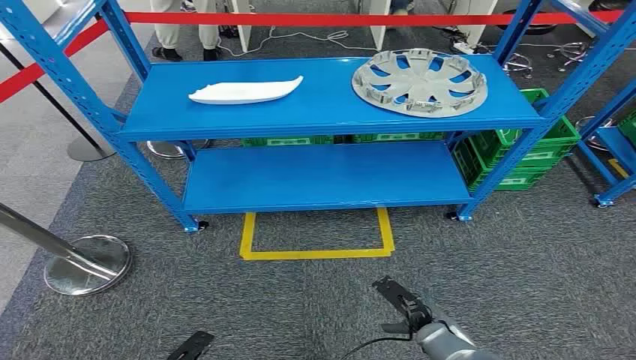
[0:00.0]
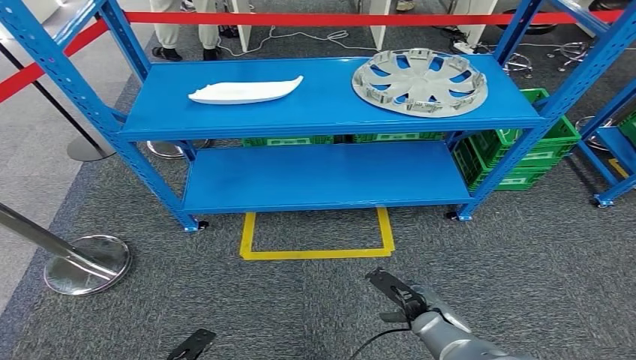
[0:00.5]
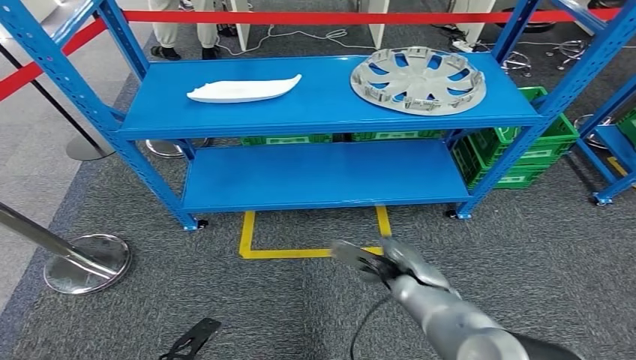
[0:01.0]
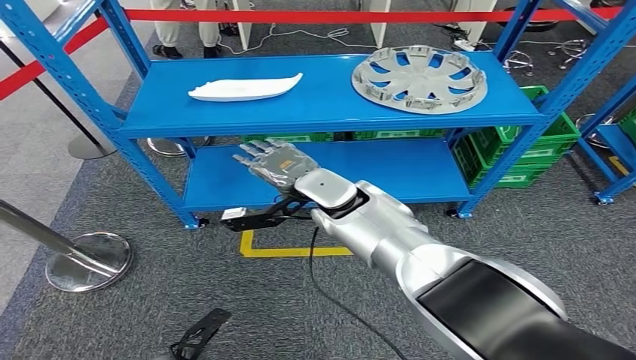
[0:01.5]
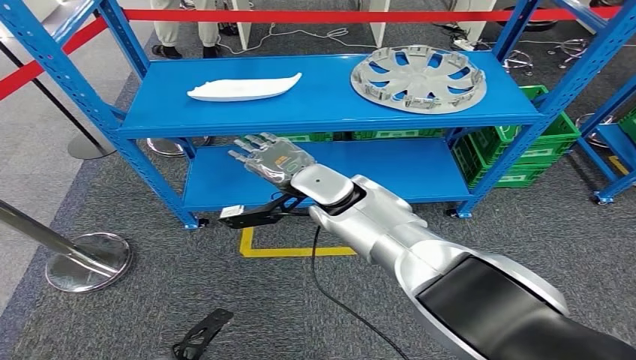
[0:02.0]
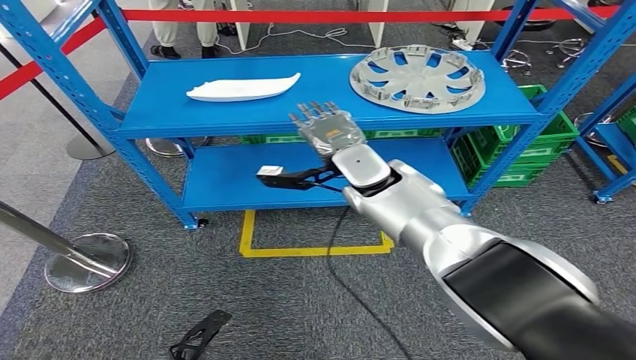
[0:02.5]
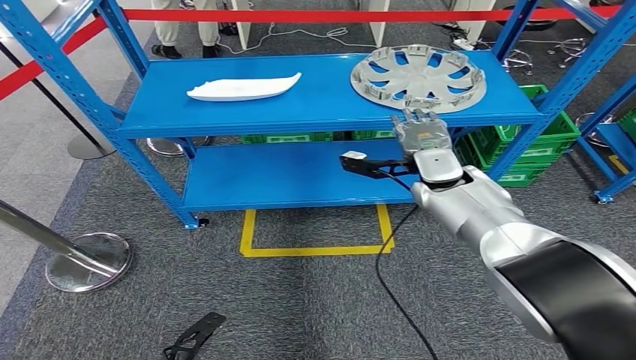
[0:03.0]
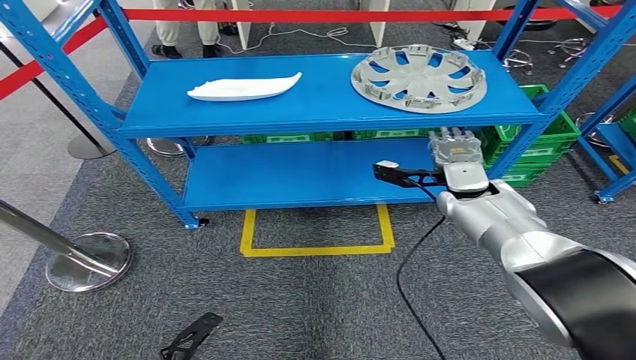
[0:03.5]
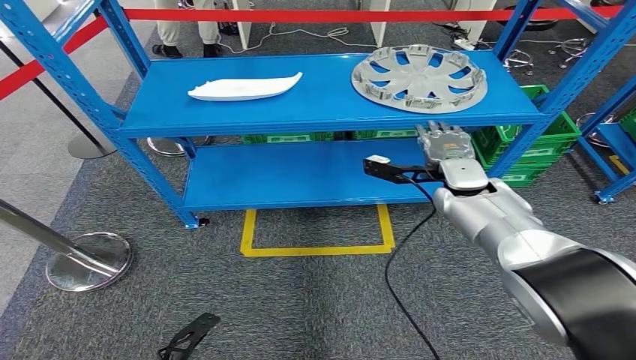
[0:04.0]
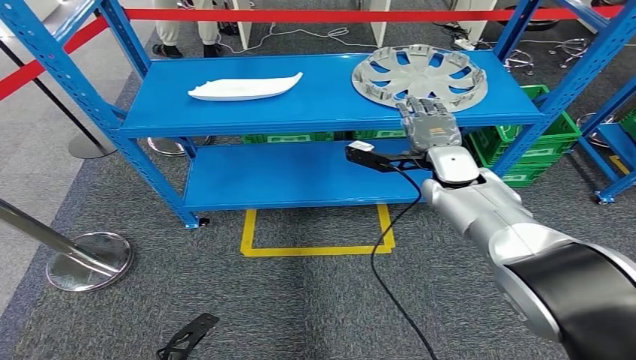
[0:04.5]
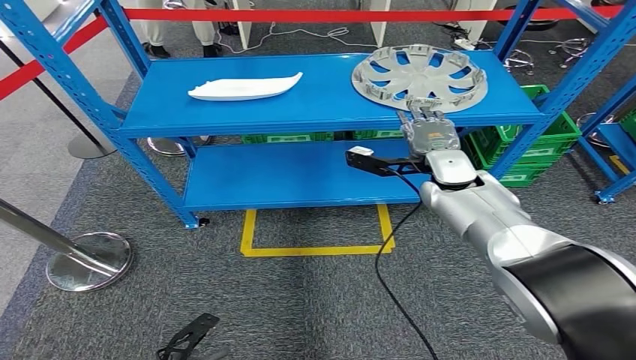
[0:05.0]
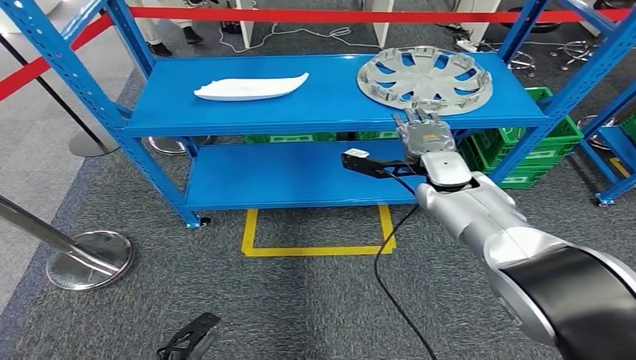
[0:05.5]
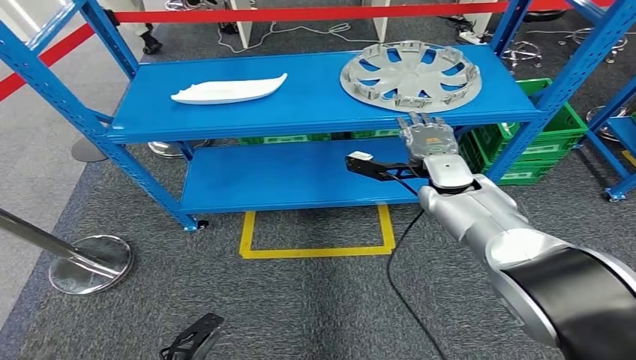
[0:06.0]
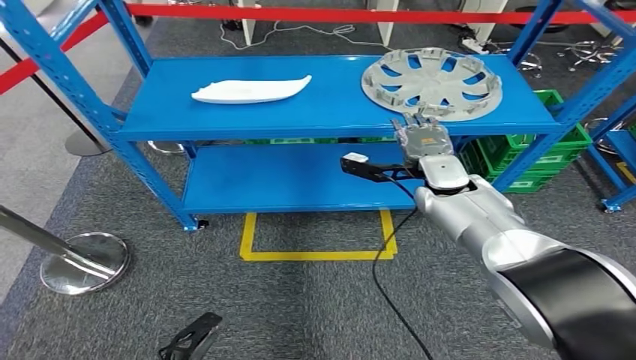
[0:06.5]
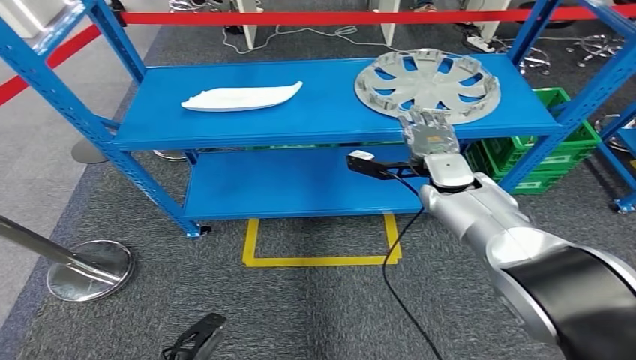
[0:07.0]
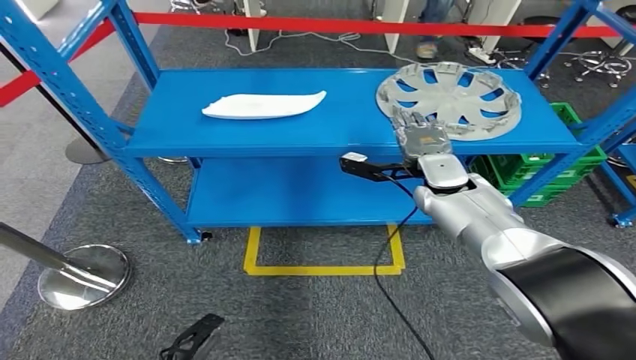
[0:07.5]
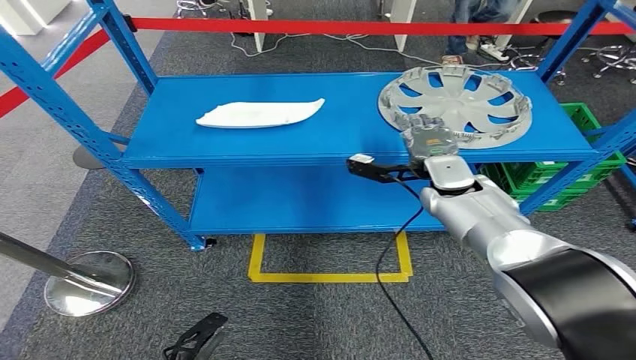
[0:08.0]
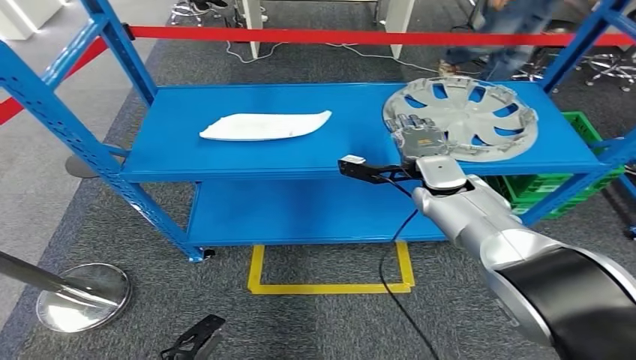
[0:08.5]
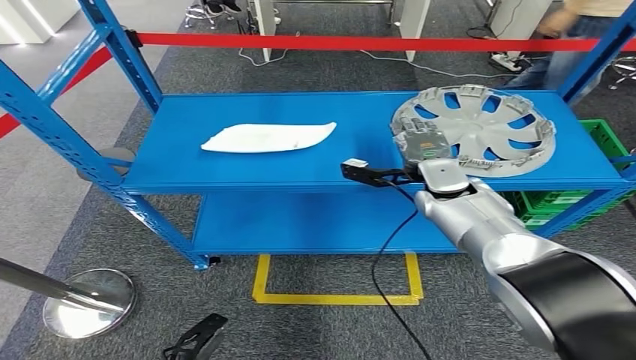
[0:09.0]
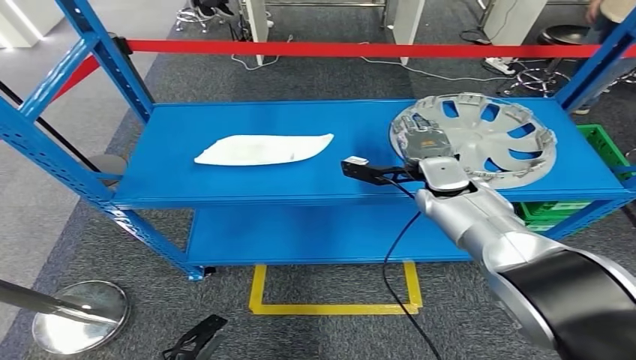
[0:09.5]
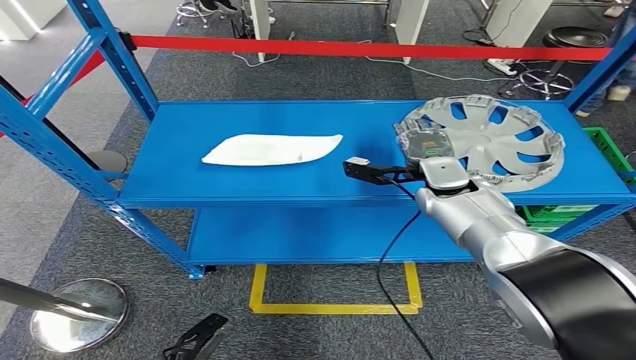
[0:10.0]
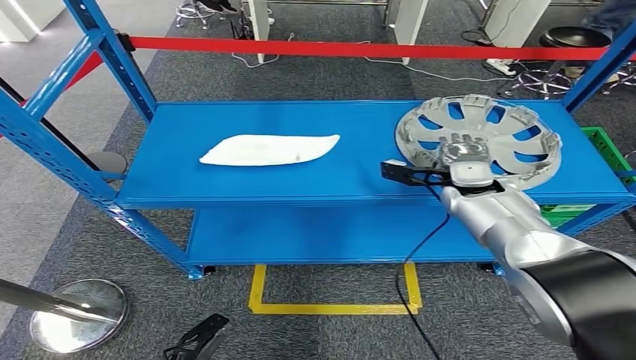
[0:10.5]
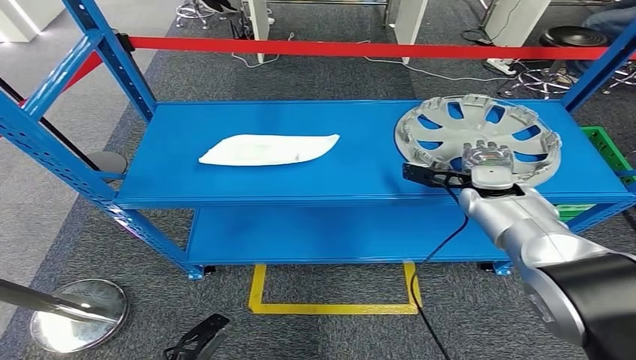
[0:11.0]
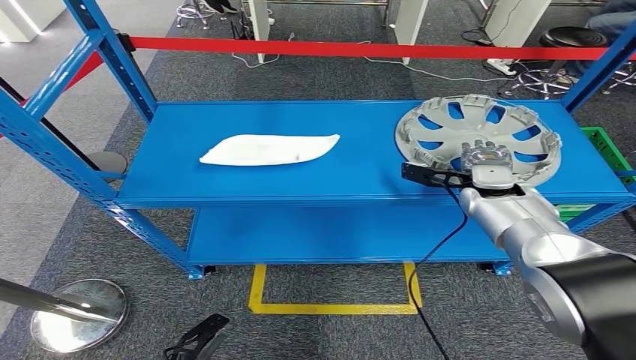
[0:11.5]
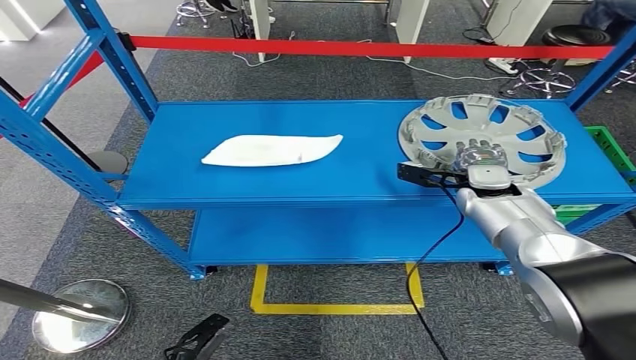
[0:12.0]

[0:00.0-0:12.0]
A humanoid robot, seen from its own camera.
0:02.0 to 0:04.0: The right hand travels to the right by roughly 20 cm.
0:10.0 to 0:12.0: The right hand shifts approximately 10 cm to the right.

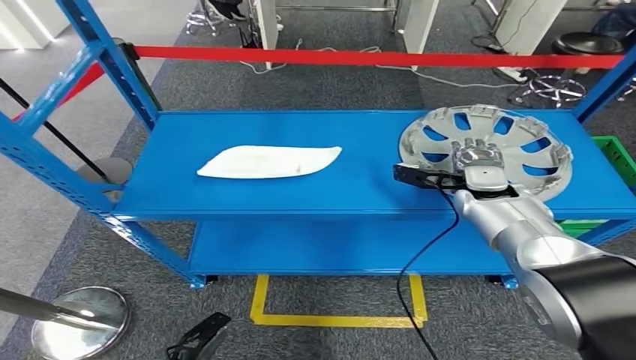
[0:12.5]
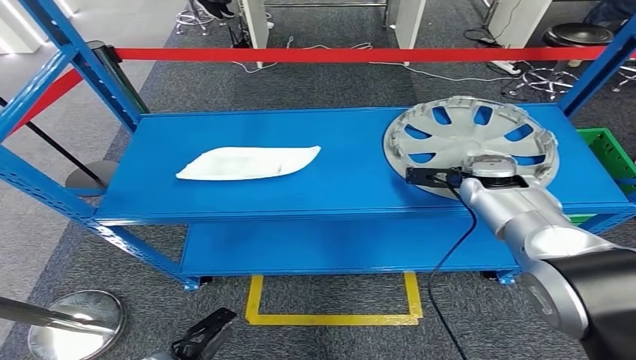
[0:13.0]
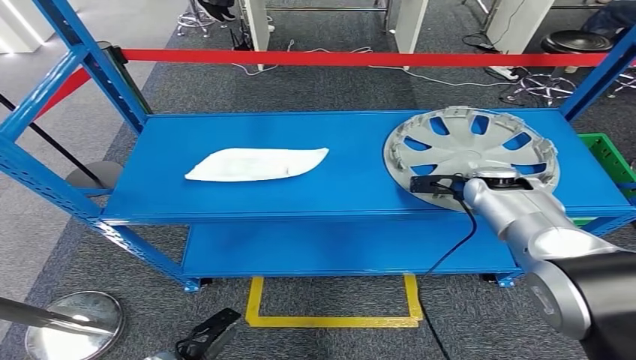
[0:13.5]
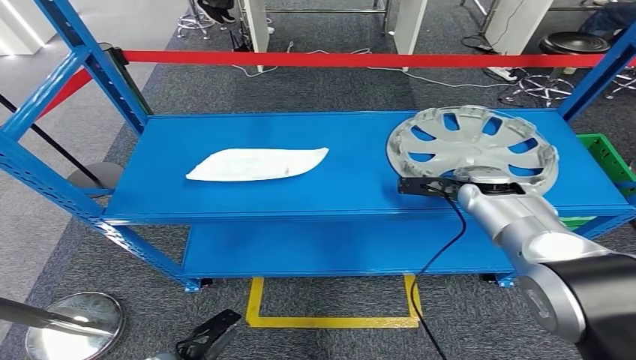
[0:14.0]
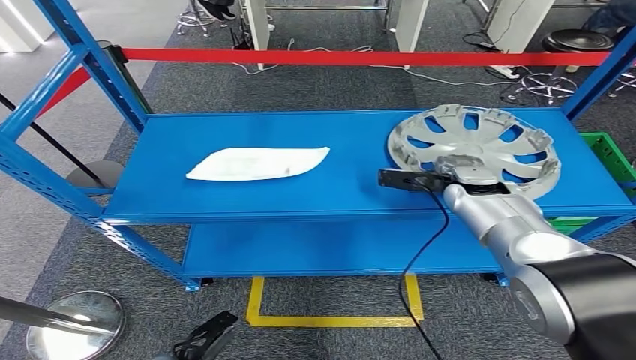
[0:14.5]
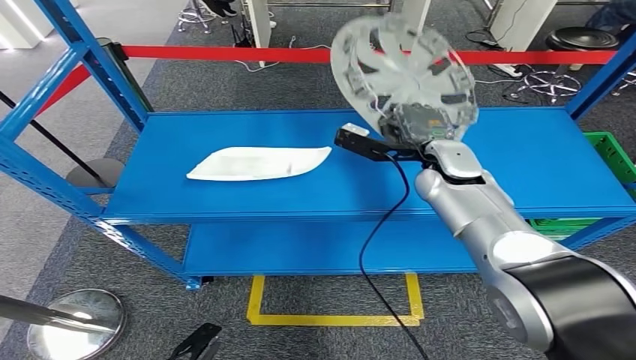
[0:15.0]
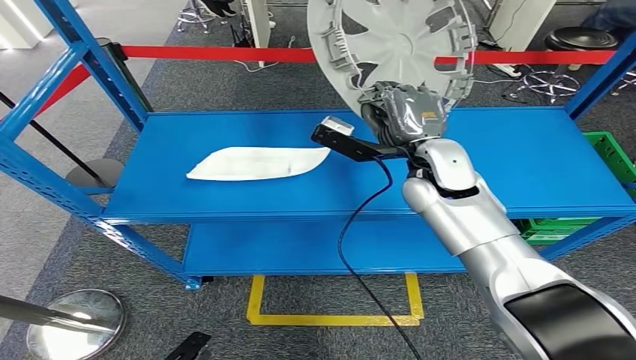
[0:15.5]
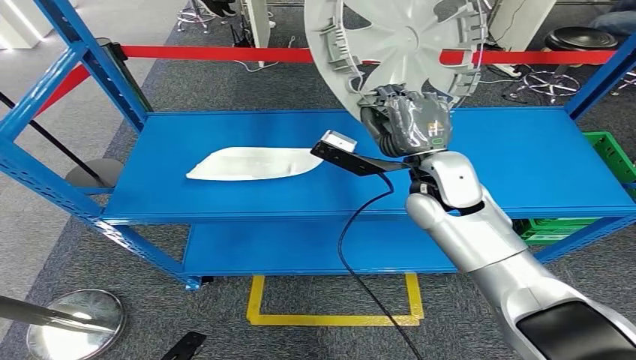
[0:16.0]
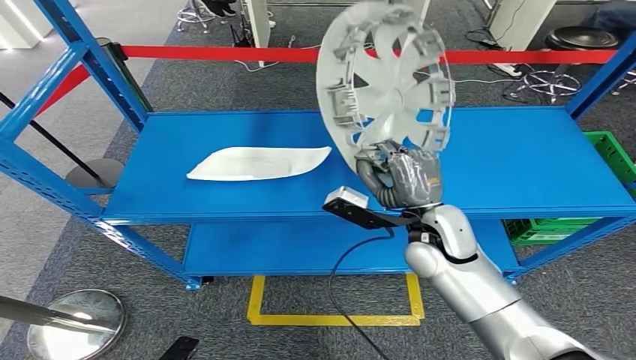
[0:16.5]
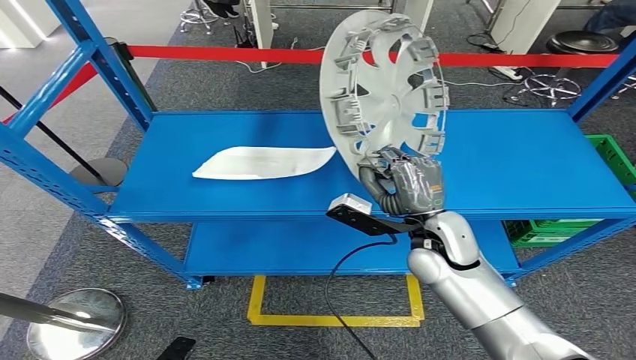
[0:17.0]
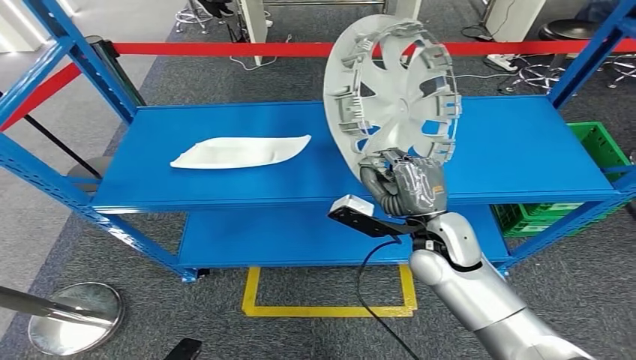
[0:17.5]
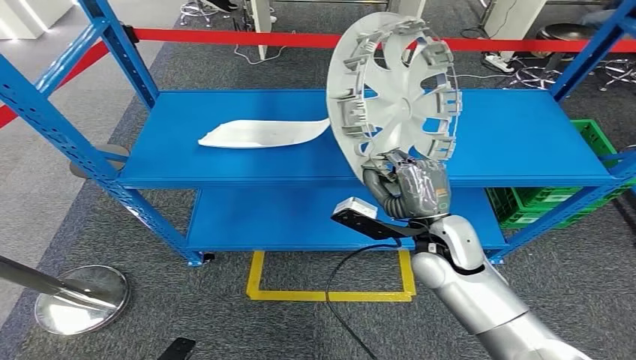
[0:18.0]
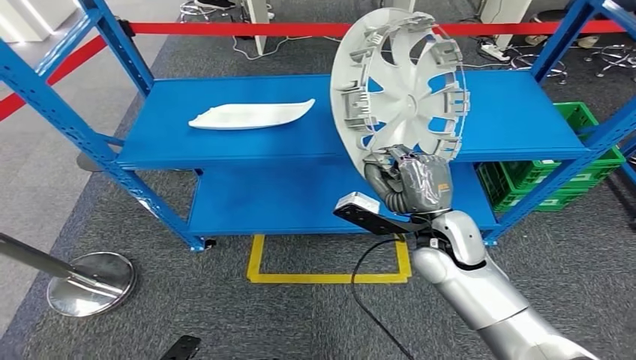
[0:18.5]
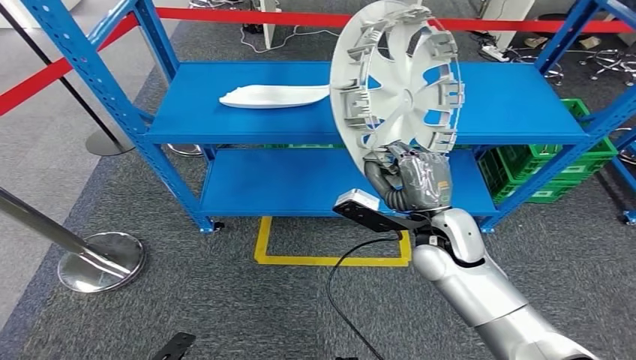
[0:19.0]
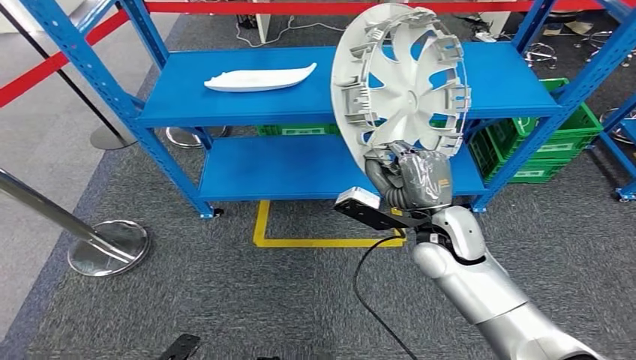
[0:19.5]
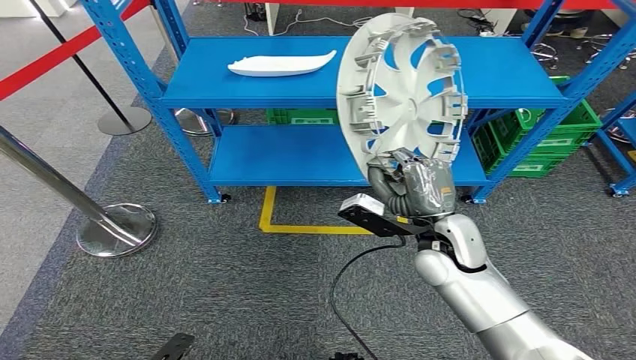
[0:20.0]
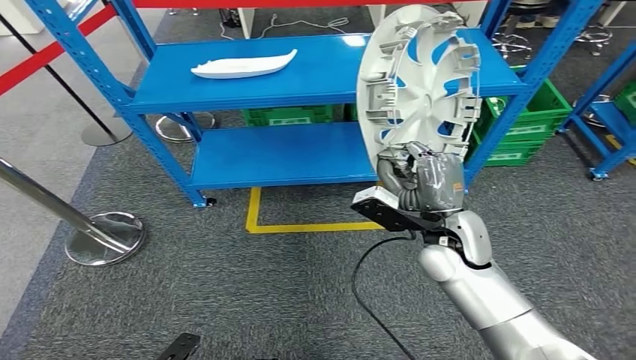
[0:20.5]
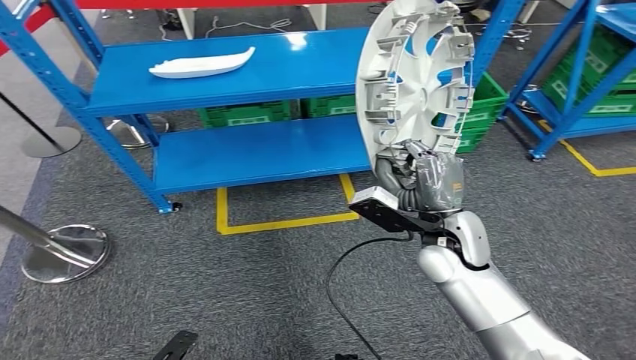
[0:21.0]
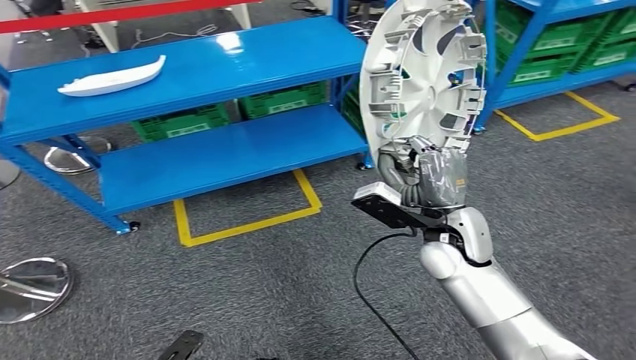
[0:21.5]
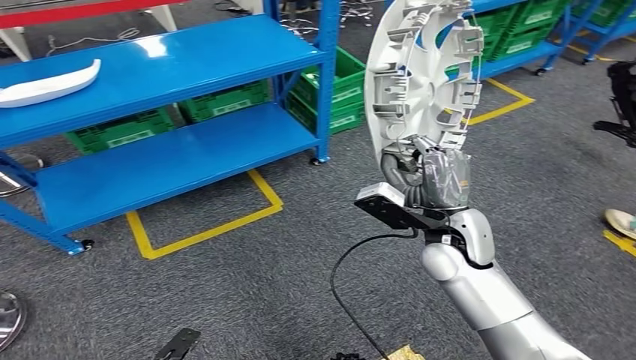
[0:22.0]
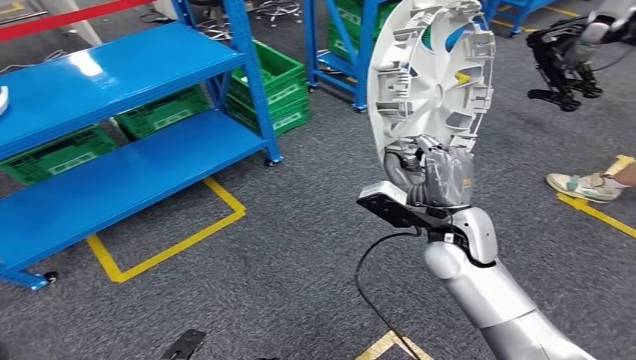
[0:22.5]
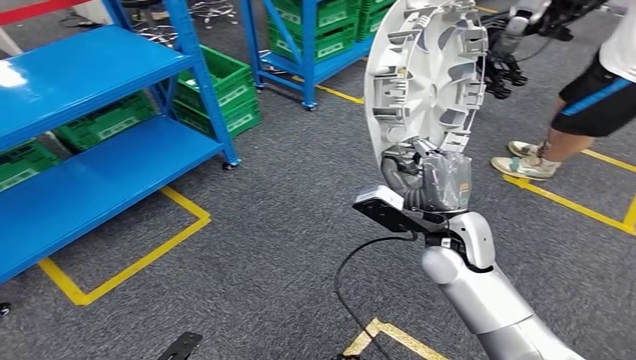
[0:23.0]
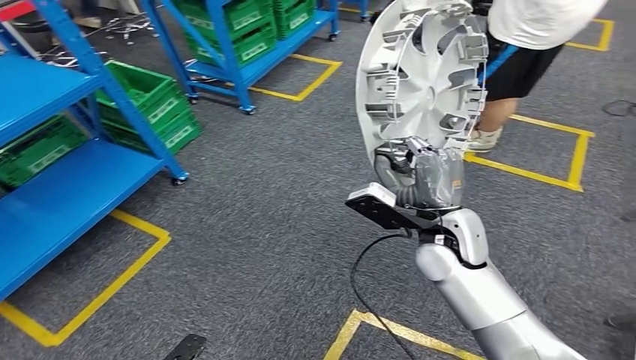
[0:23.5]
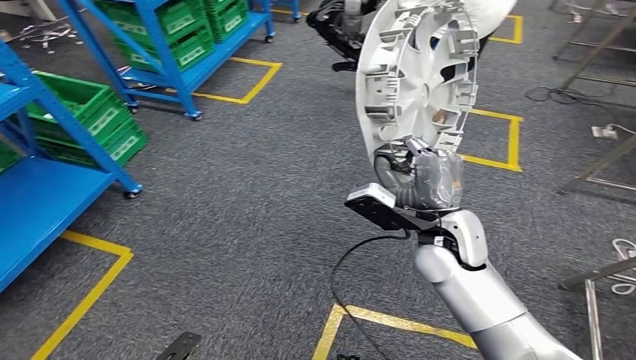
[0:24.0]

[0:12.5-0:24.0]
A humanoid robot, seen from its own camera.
Step, 0:12.5 to 0:15.0: Take small components from the rack.
